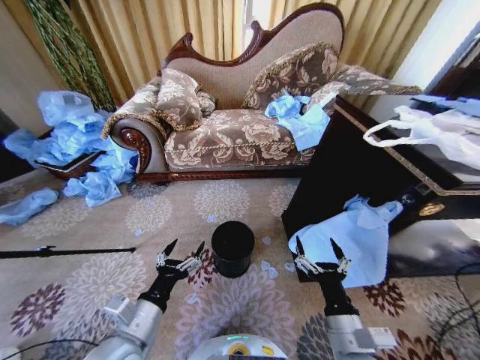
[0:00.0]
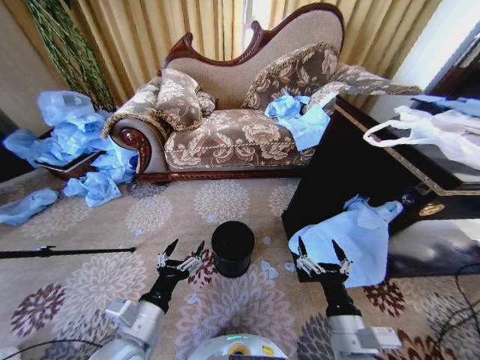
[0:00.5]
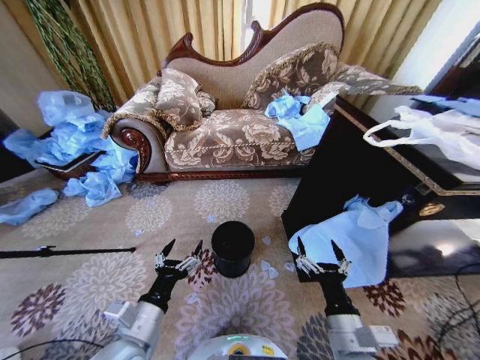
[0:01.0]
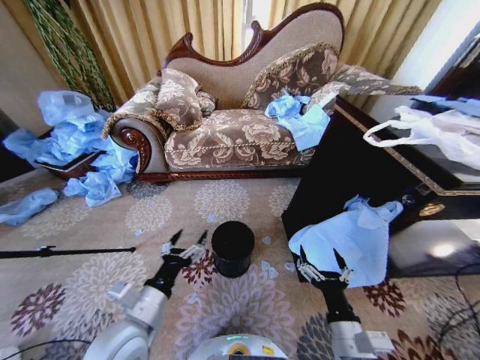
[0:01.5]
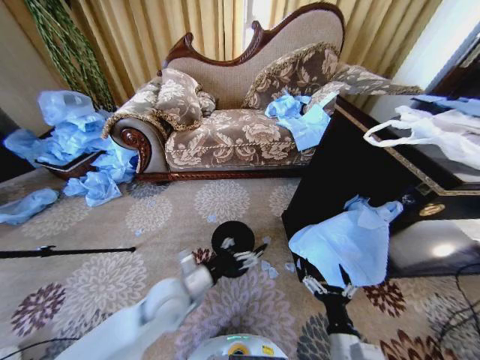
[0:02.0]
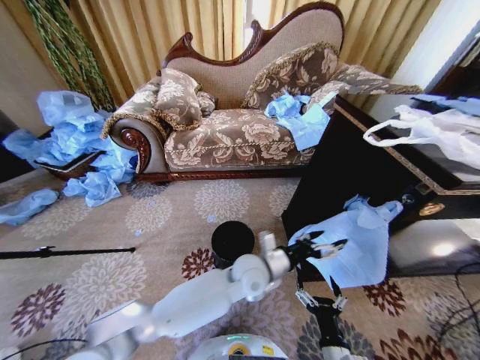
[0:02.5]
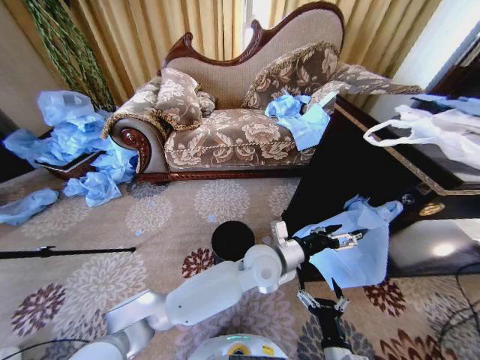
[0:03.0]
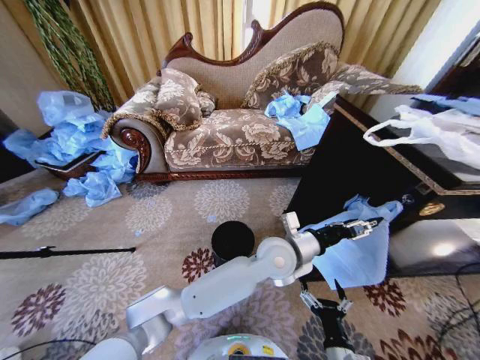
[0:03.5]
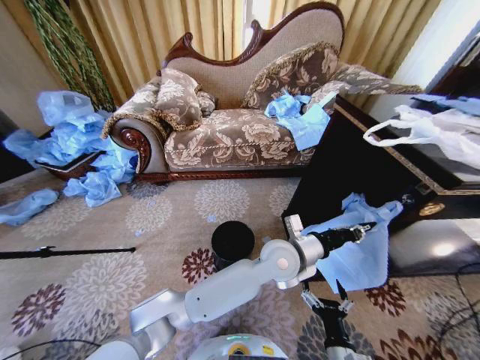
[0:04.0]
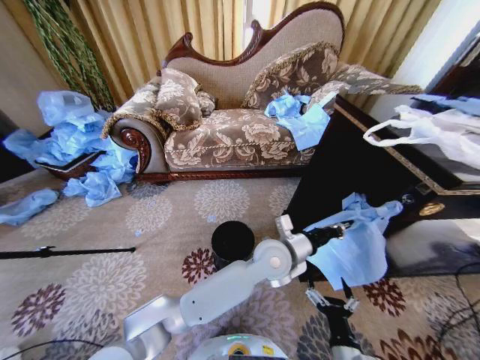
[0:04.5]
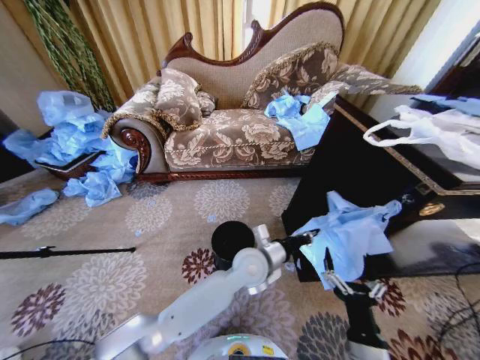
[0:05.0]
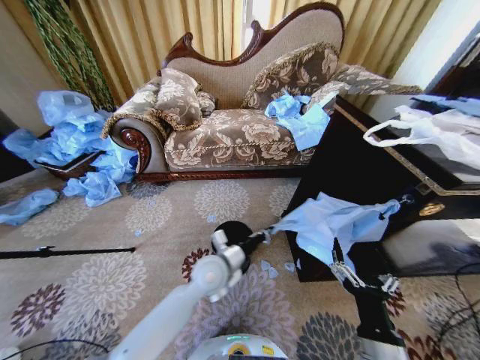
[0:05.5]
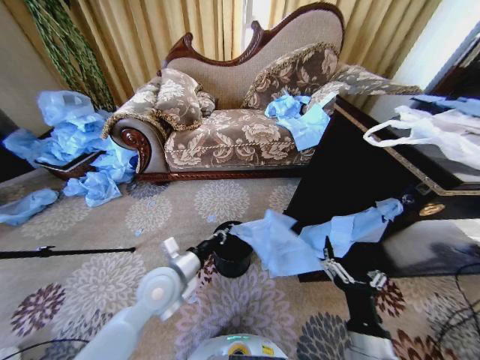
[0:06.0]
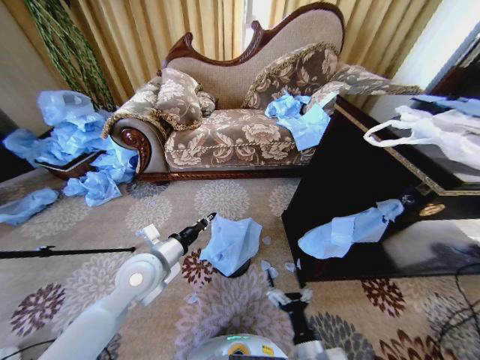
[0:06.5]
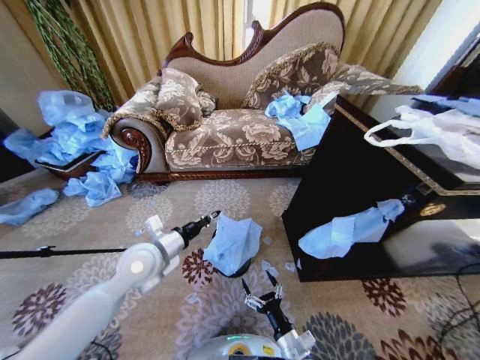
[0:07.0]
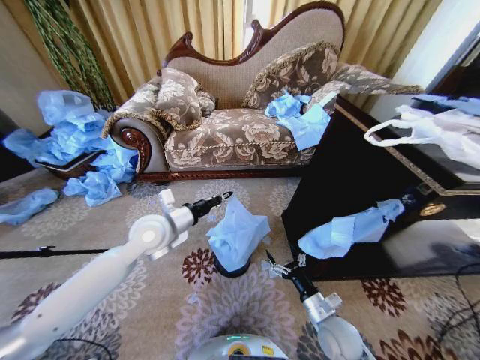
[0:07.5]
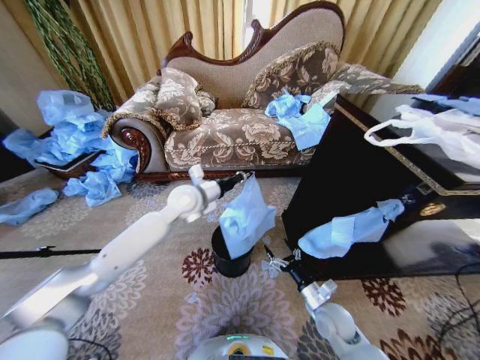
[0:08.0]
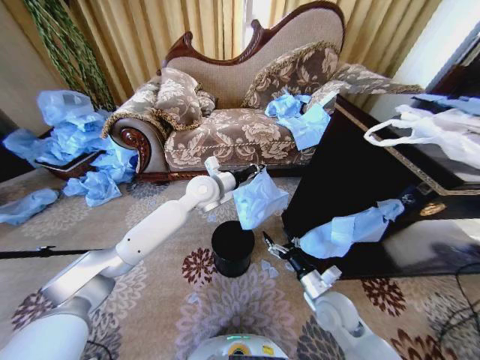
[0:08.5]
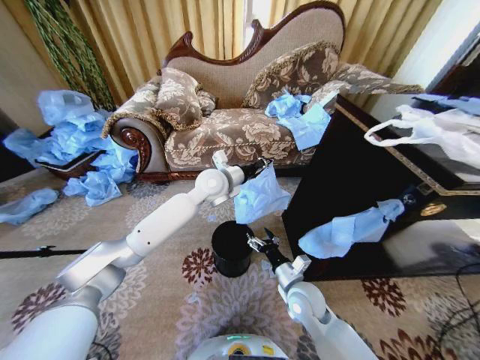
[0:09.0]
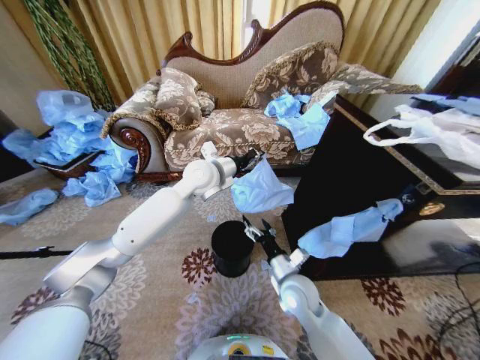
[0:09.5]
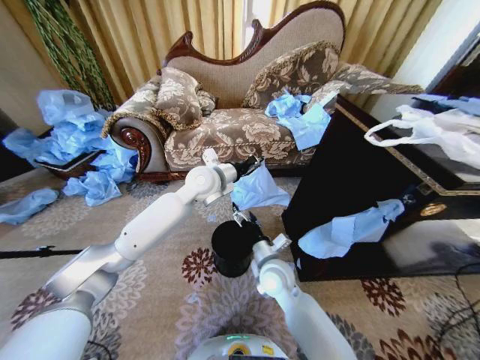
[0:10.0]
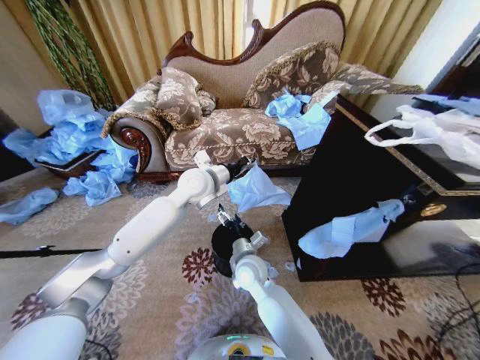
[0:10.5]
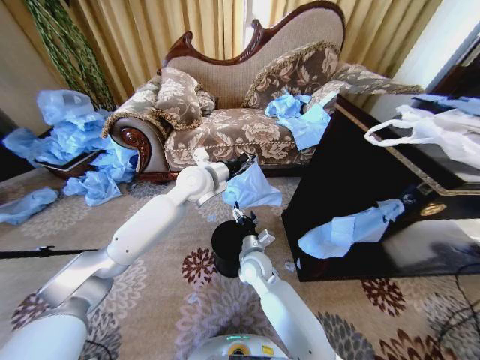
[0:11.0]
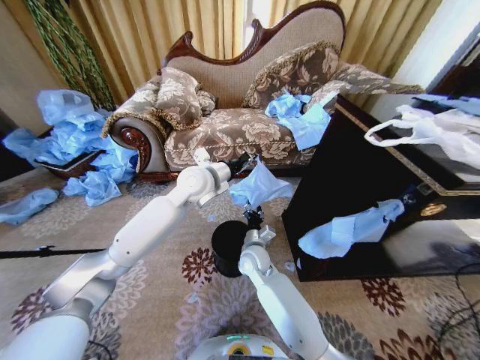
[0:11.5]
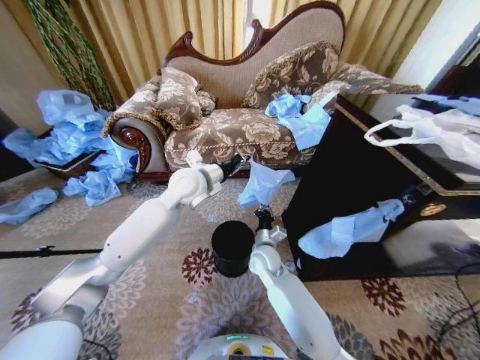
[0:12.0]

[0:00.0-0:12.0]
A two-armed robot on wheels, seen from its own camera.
Task of the whole recording: Place a garbage bag over the trash bin.
0:02.0 to 0:04.0: The left gripper is displaced to the right by approximately 25 cm, and closes up.
0:04.0 to 0:06.0: The right gripper goes approximately 10 cm upward. The left gripper is displaced to the left by roughly 30 cm.
0:06.0 to 0:08.0: The left gripper moves forward and upward, approximately 20 cm, while the right gripper shifts approximately 20 cm forward and downward.
0:08.0 to 0:10.0: The left gripper moves approximately 5 cm. The right gripper moves to the left and upward, about 20 cm.
0:10.0 to 0:12.0: The right gripper moves forward, some 5 cm, and closes its fingers.

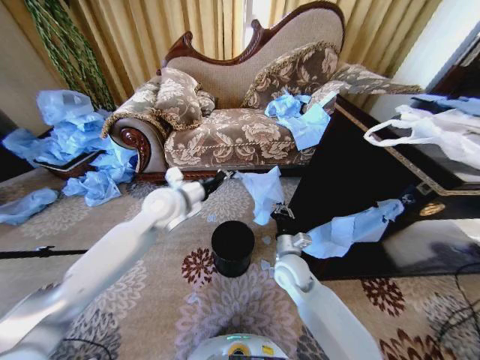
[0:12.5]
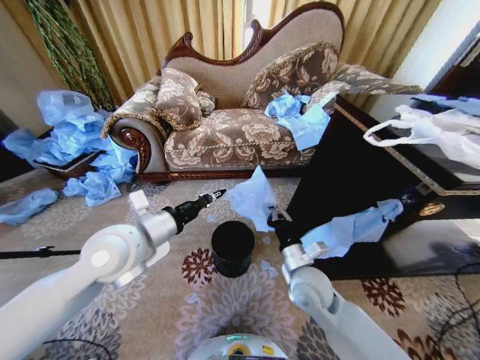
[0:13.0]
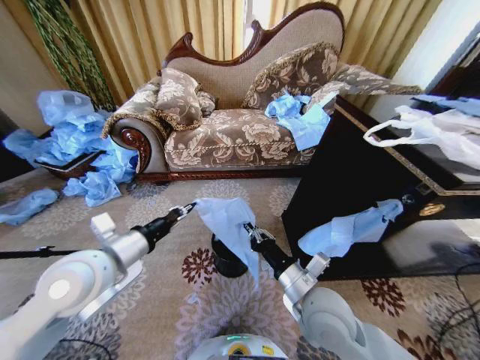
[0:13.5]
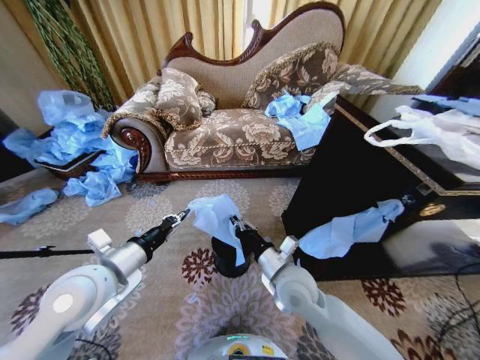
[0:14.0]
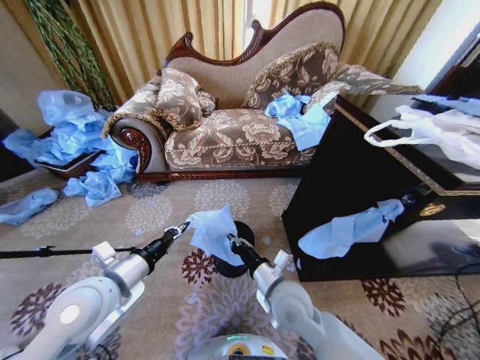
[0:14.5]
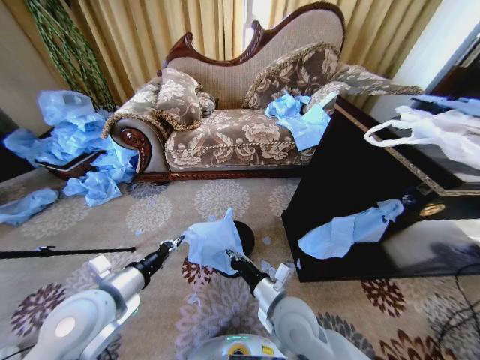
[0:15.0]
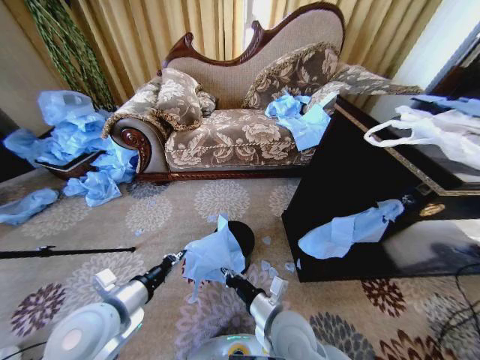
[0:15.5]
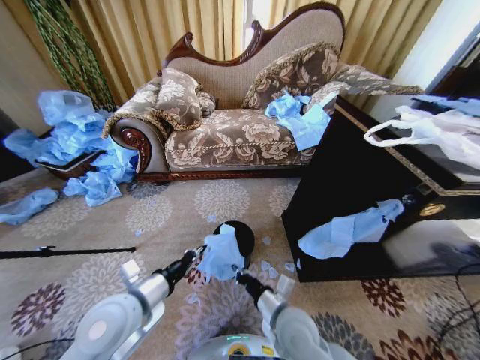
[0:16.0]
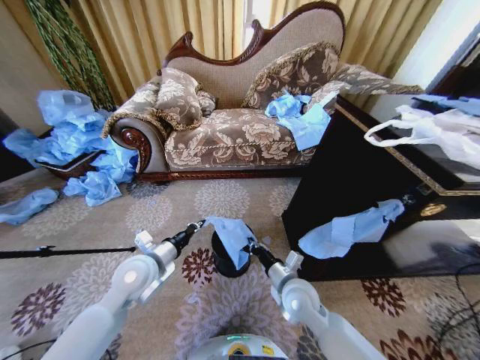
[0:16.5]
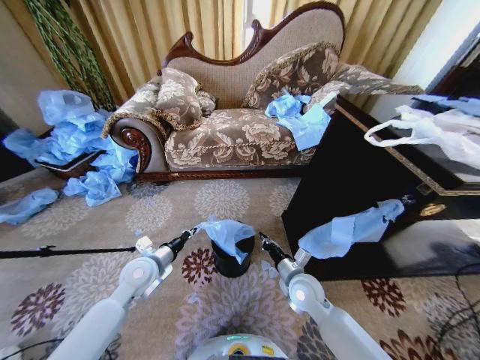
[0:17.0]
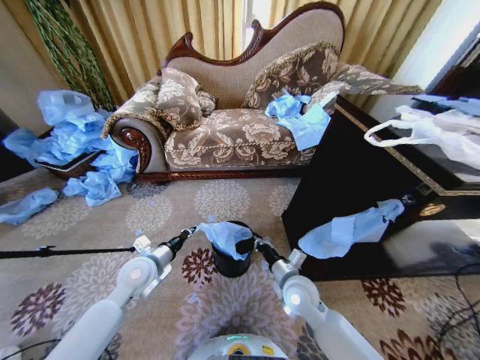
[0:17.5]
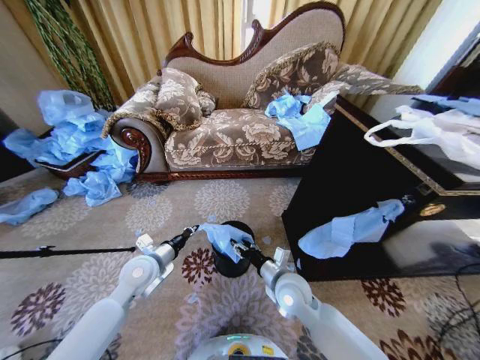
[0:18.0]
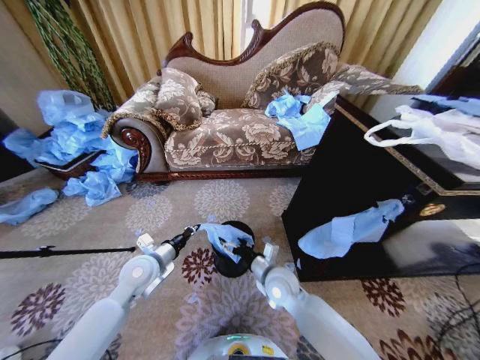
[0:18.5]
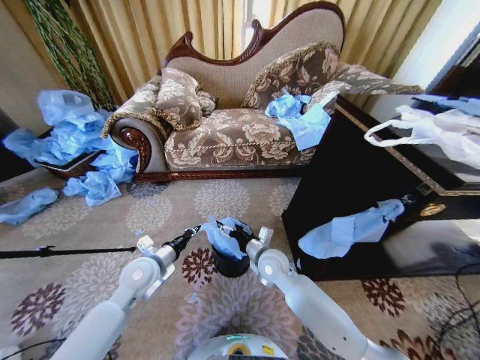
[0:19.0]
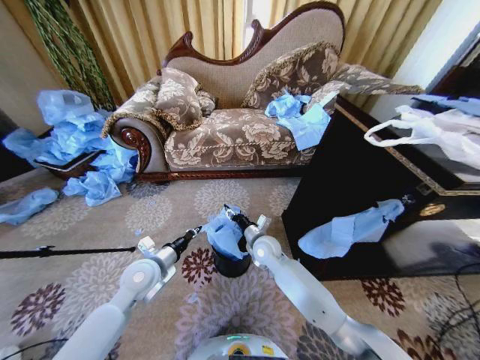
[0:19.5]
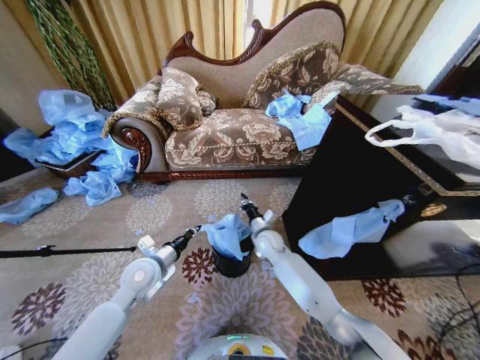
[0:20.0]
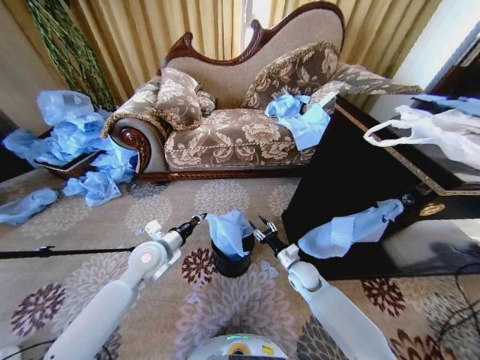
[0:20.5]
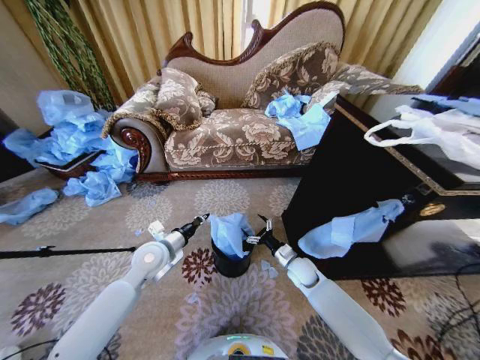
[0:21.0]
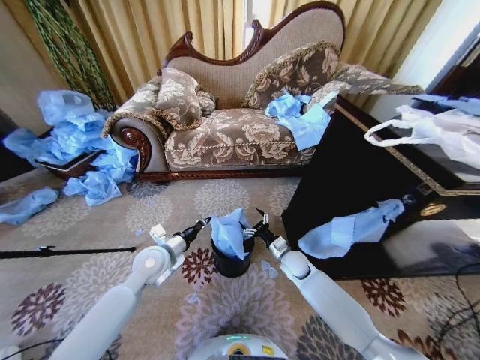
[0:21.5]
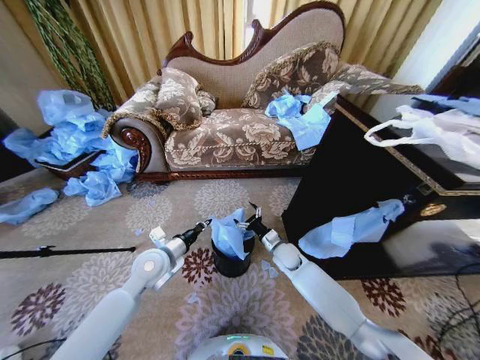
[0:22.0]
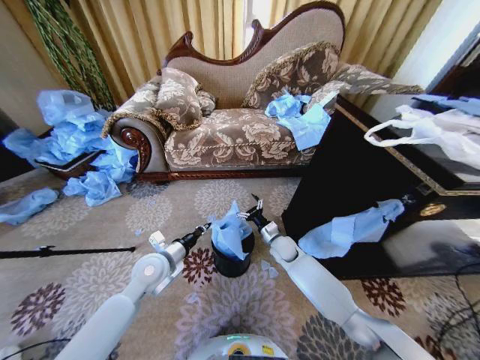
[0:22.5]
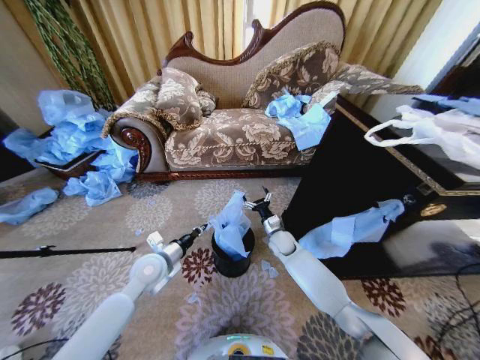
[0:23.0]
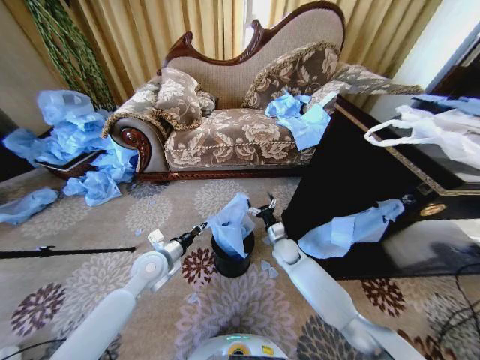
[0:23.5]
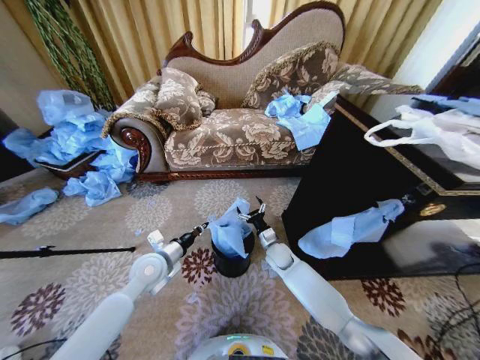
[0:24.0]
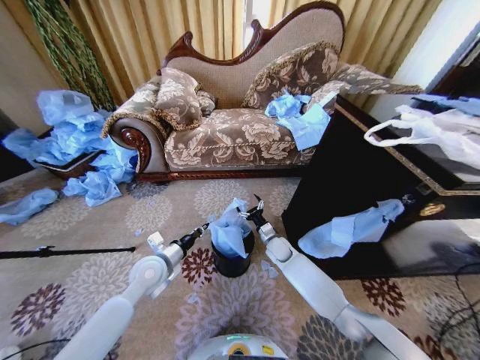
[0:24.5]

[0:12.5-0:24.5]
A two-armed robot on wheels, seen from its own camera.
Task of the whole recording: Place a garbage bag over the trash bin.
0:12.5 to 0:14.5: The right gripper is displaced backward by roughly 10 cm. The left gripper moves backward and to the left, approximately 20 cm.
0:14.5 to 0:16.5: The left gripper travels forward and downward by roughly 10 cm; the right gripper ends up about 5 cm from where it was.
0:16.5 to 0:18.5: The right gripper changes place by approximately 5 cm, and opens up.
0:18.5 to 0:20.5: The right gripper shifts some 15 cm to the right, downward and forward, and closes its fingers.
0:20.5 to 0:22.5: The right gripper travels forward and to the left by about 10 cm, and opens its fingers.
0:22.5 to 0:24.5: The grippers make only small movements.

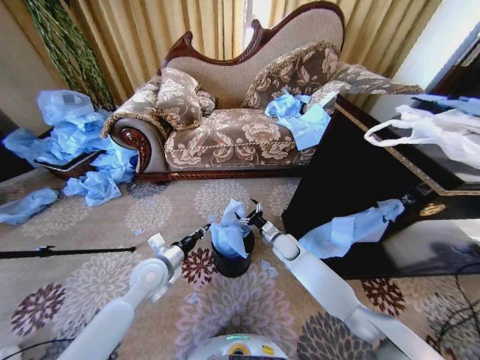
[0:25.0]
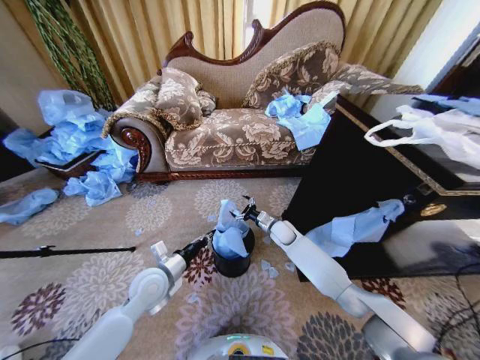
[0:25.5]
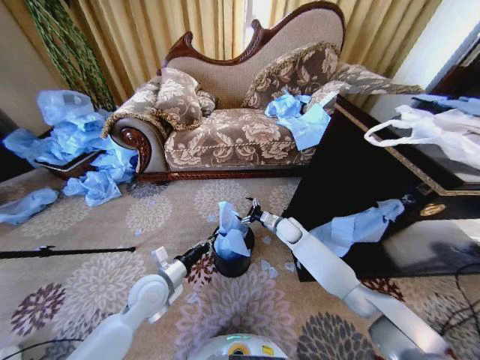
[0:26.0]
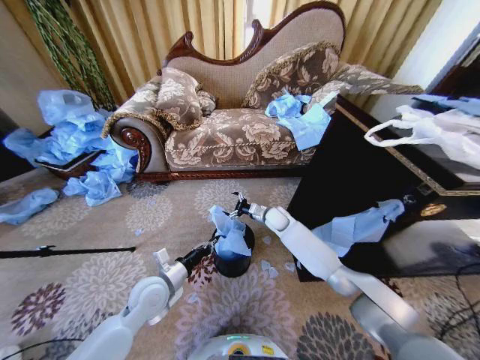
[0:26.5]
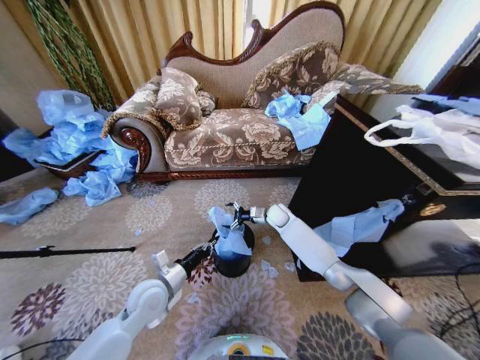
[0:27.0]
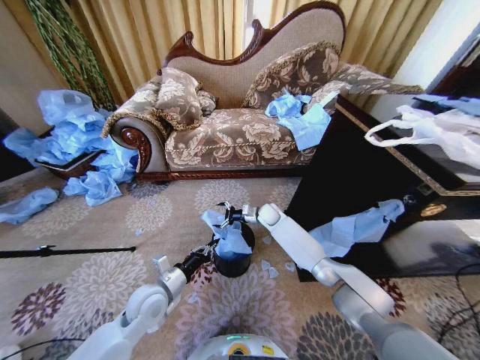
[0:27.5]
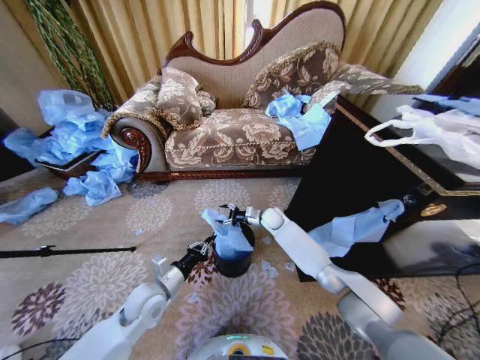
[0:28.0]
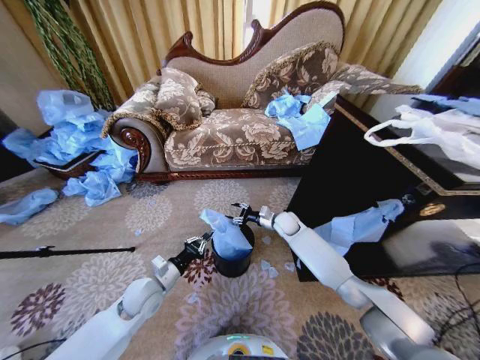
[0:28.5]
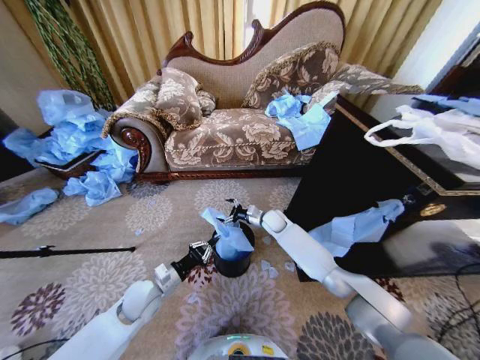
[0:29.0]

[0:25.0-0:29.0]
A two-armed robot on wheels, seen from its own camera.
Task of the whole recording: Place a garbage bag over the trash bin.
0:25.0 to 0:27.0: The left gripper moves approximately 5 cm; the right gripper goes roughly 10 cm forward and upward.
0:27.0 to 0:29.0: The right gripper closes, then reopens.
